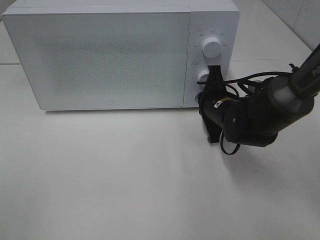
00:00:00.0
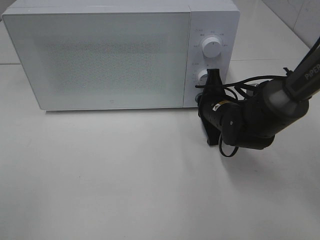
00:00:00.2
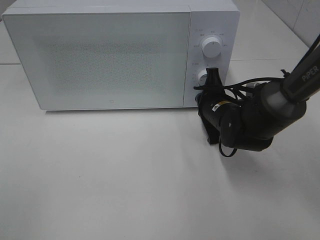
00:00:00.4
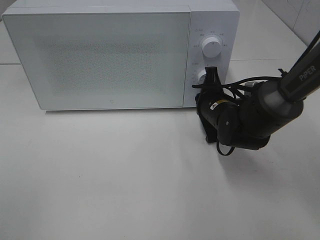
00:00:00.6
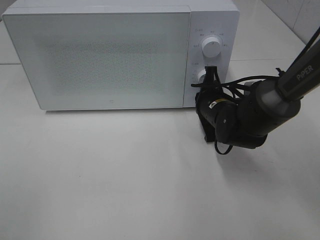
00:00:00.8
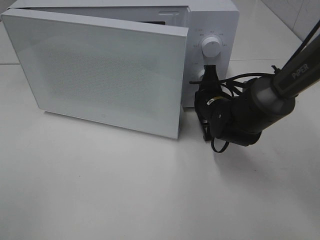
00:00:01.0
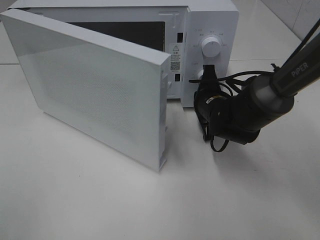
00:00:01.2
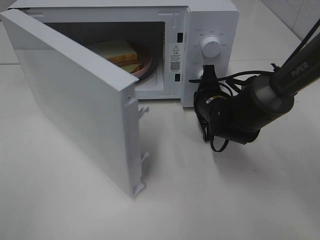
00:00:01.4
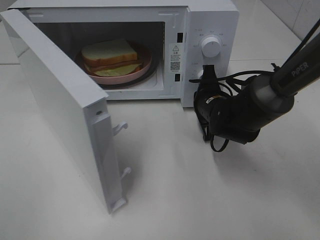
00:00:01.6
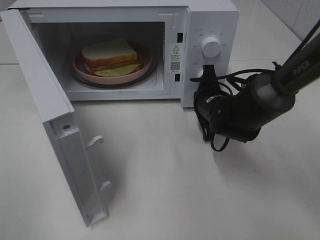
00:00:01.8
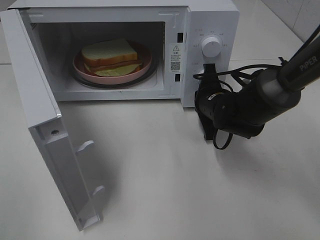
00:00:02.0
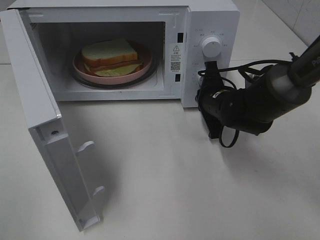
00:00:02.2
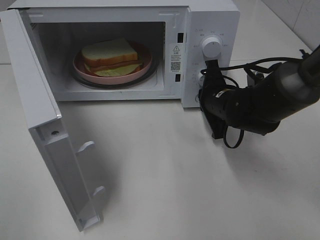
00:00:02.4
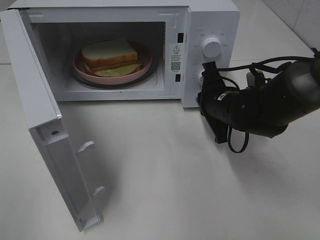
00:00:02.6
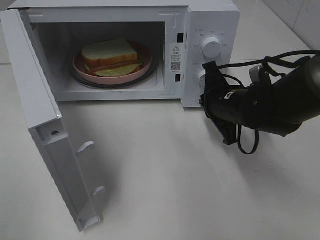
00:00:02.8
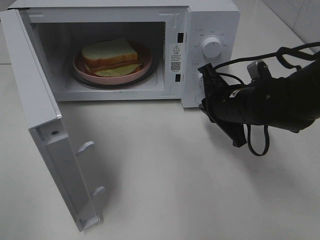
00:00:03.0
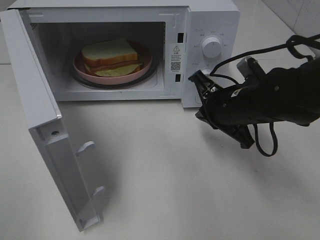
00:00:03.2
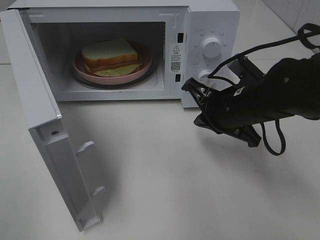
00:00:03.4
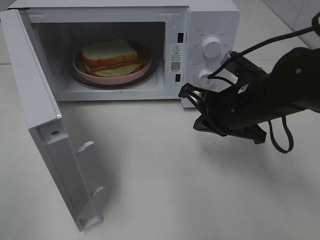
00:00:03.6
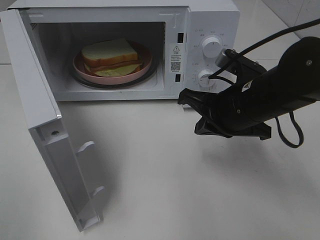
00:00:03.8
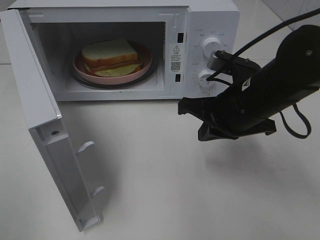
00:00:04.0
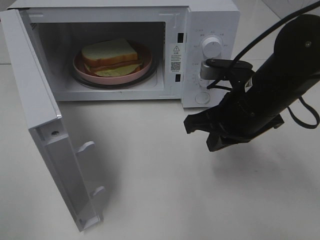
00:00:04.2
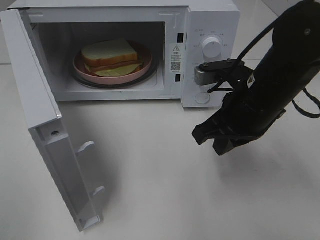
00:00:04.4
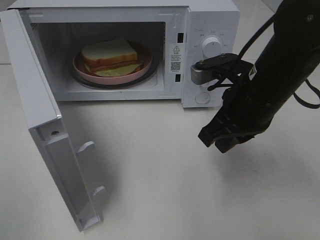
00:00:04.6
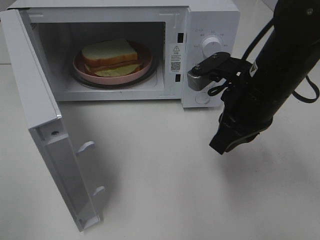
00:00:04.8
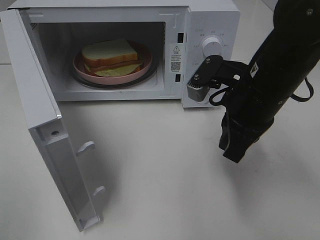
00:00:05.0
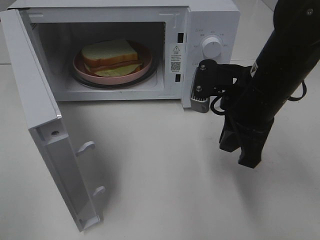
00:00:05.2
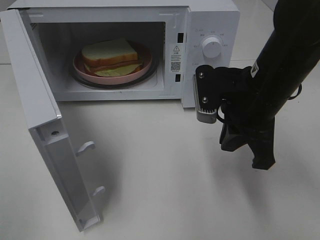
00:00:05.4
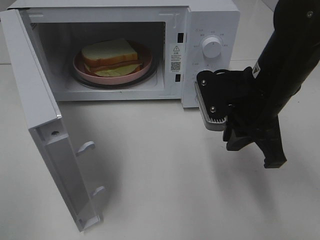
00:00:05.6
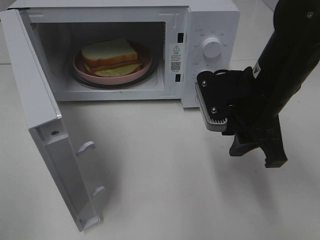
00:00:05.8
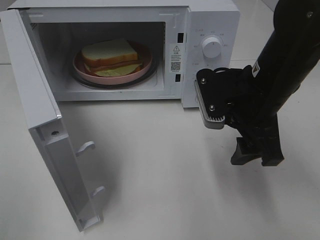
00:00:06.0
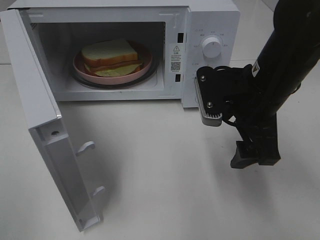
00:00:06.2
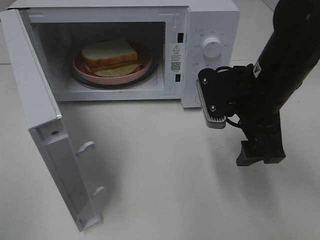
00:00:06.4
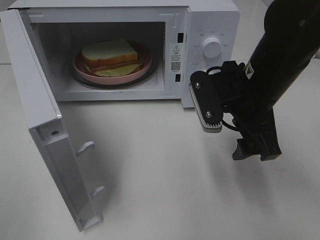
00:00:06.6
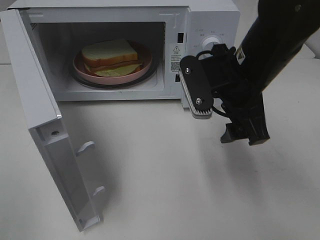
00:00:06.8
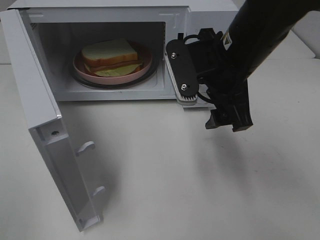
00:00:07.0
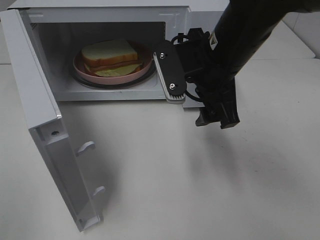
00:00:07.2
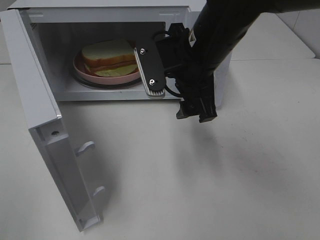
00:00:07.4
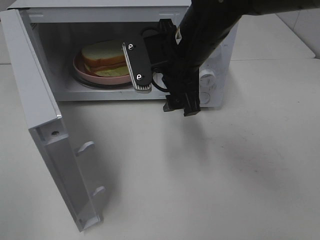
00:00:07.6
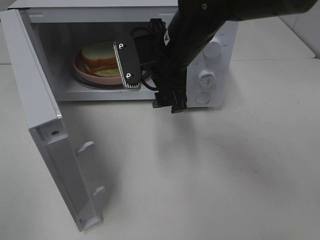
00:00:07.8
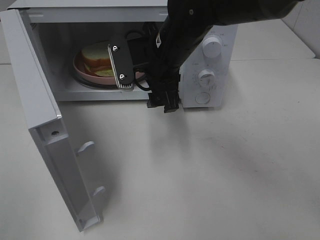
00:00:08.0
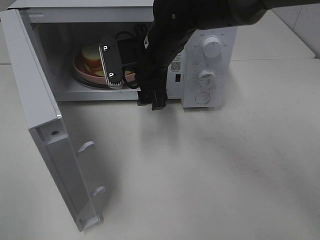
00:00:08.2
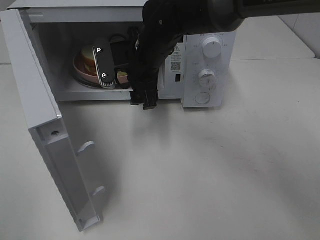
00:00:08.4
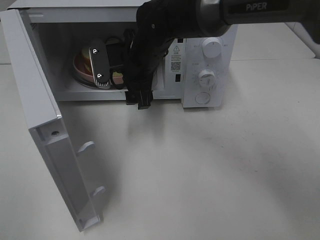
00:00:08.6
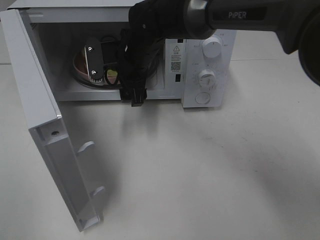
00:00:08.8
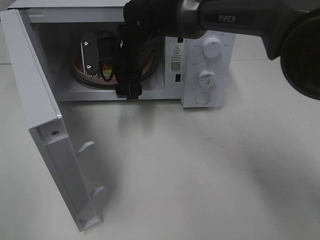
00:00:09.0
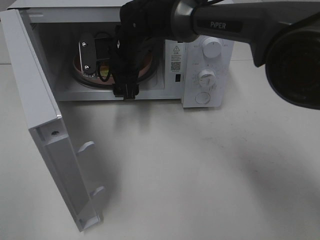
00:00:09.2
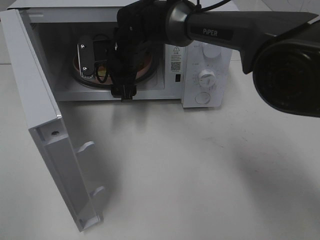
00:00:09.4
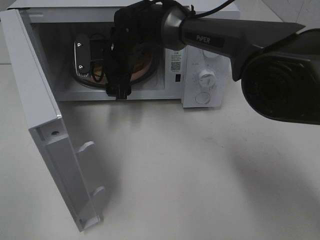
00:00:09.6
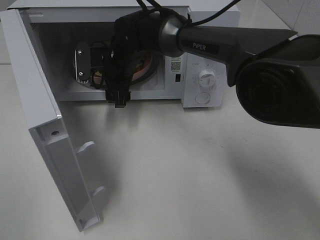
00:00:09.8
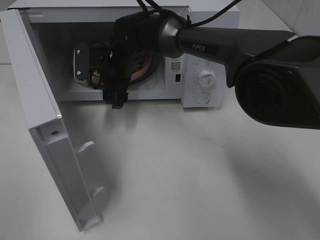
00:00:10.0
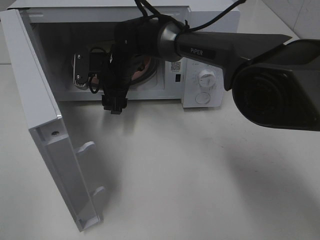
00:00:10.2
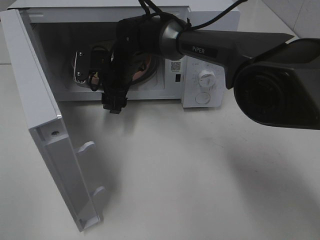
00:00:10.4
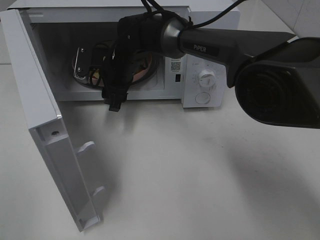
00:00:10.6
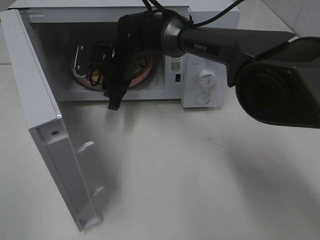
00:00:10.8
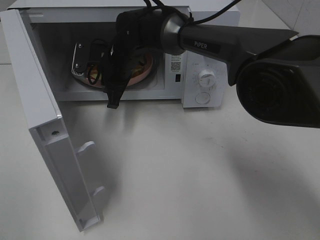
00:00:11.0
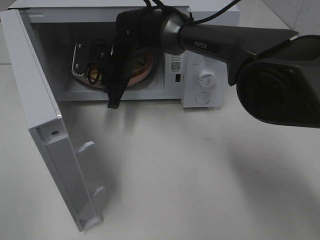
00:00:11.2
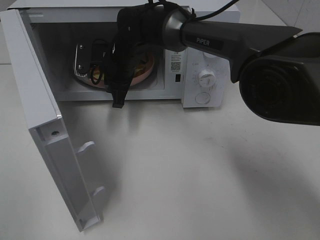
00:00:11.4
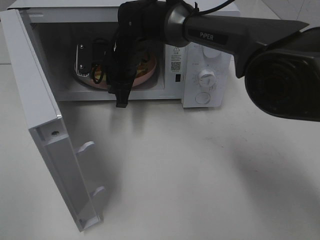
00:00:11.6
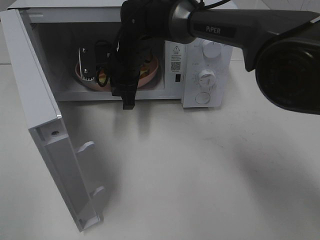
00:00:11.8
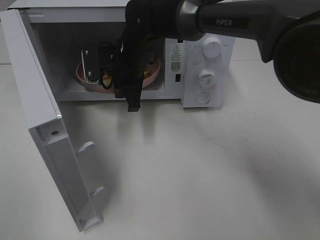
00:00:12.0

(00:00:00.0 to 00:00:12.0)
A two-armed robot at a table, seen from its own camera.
Task of the whole recording: Heat Sandwich.
Step, 00:00:00.0 - 00:00:02.6: Right hand: press the switch.
Step, 00:00:02.8 - 00:00:11.2: Right hand: grab the plate with the sandwich.
00:00:01.6 - 00:00:03.0: The right gripper heads backward and upward, covering about 10 cm.
00:00:03.0 - 00:00:04.4: The right gripper heads upward, covering about 5 cm.
00:00:04.4 - 00:00:06.0: The right gripper opens its fingers.
00:00:06.0 - 00:00:07.6: The right gripper travels to the left and forward by some 10 cm.
00:00:07.6 - 00:00:09.0: The right gripper heads forward, to the left and downward, covering some 15 cm.
00:00:09.0 - 00:00:10.4: The right gripper shifts by approximately 5 cm.
00:00:10.4 - 00:00:12.0: The right gripper closes its fingers.

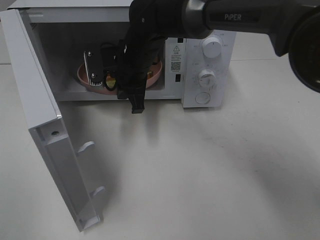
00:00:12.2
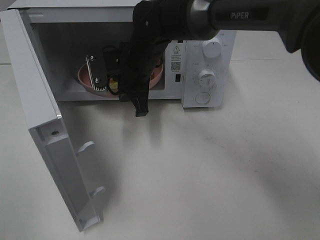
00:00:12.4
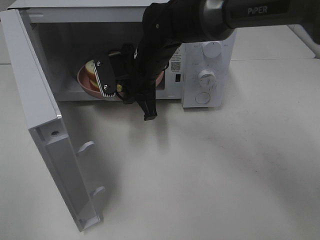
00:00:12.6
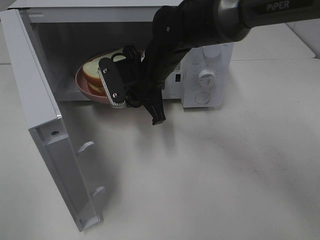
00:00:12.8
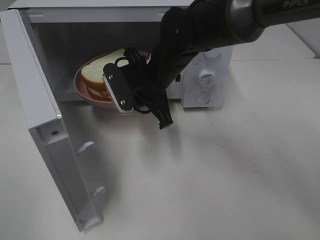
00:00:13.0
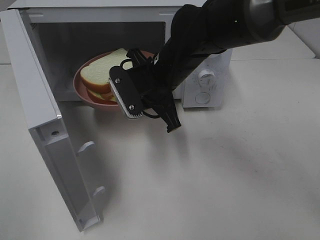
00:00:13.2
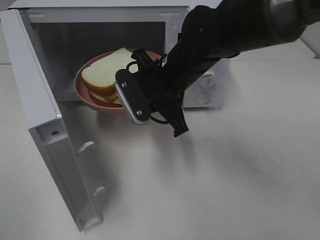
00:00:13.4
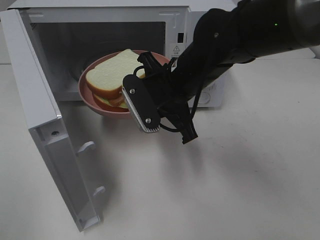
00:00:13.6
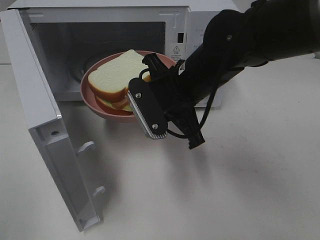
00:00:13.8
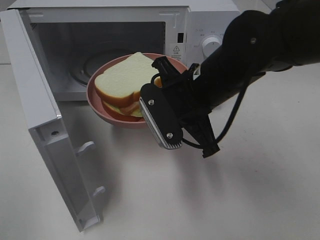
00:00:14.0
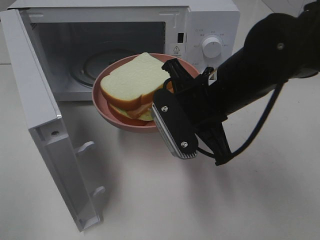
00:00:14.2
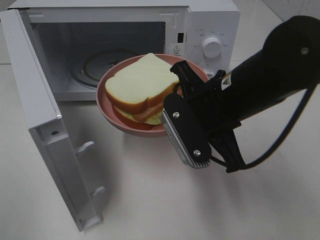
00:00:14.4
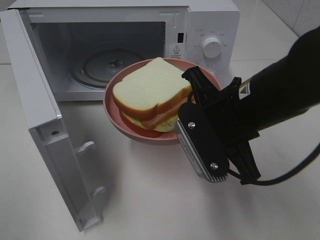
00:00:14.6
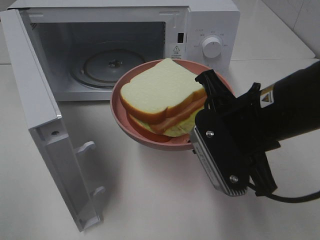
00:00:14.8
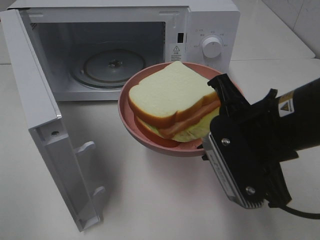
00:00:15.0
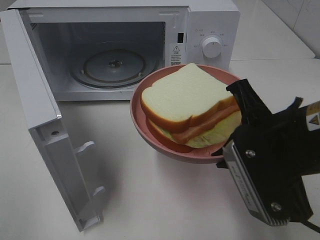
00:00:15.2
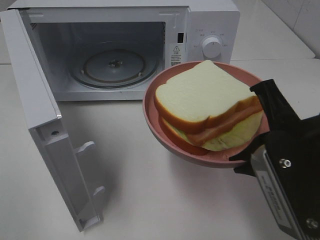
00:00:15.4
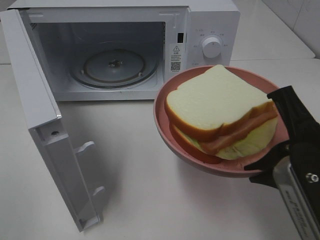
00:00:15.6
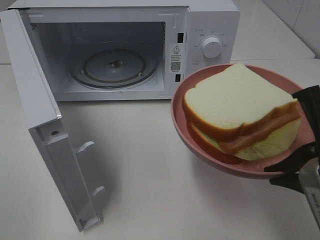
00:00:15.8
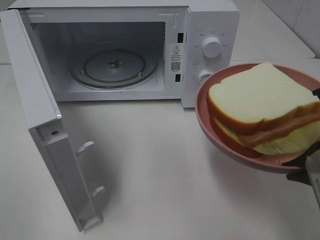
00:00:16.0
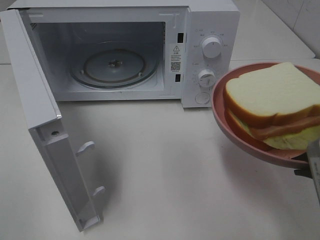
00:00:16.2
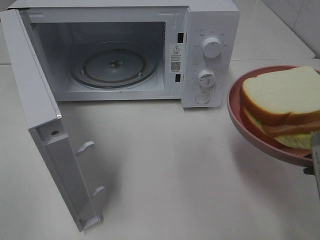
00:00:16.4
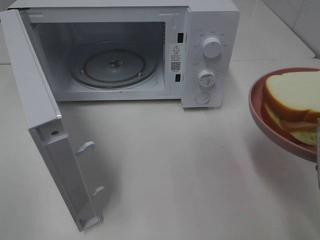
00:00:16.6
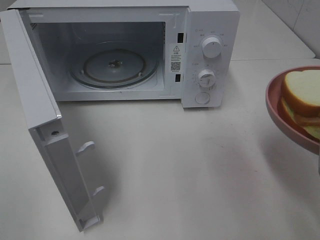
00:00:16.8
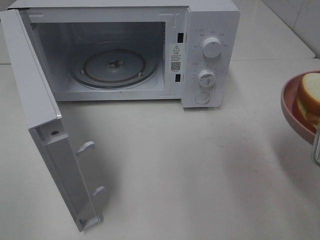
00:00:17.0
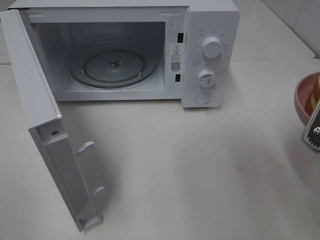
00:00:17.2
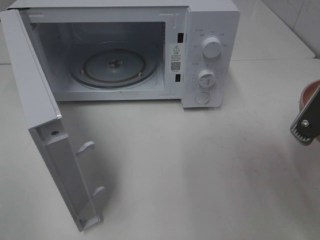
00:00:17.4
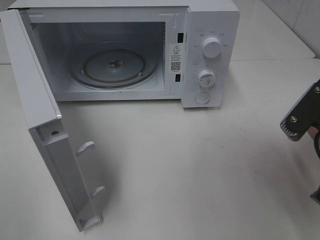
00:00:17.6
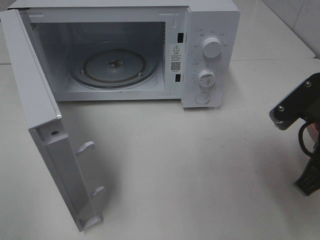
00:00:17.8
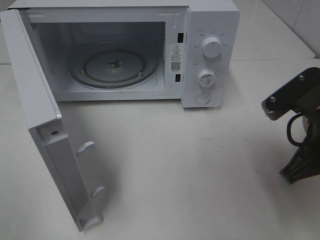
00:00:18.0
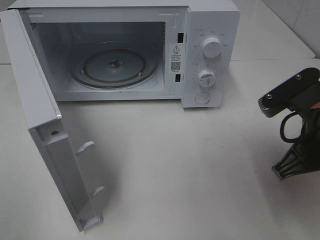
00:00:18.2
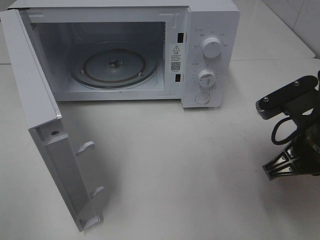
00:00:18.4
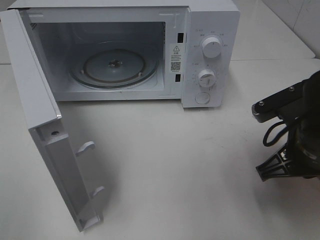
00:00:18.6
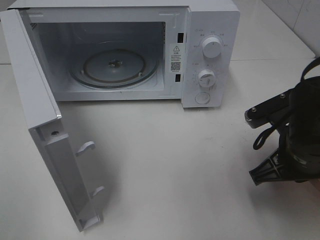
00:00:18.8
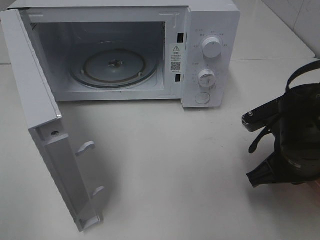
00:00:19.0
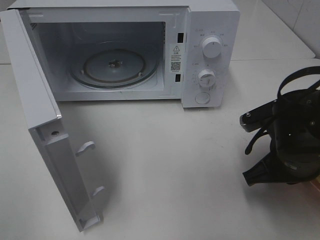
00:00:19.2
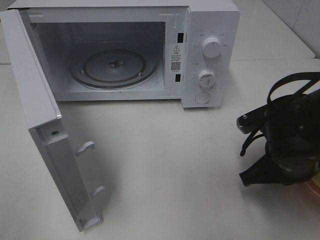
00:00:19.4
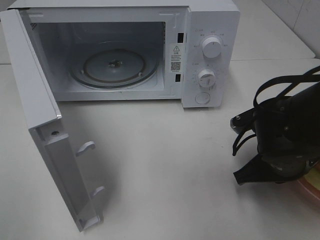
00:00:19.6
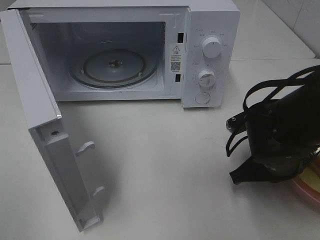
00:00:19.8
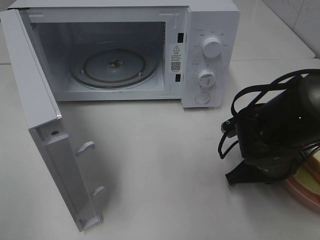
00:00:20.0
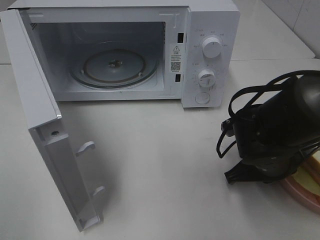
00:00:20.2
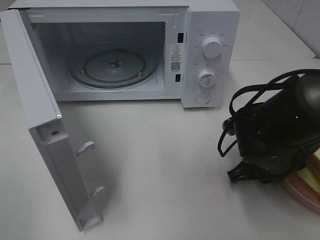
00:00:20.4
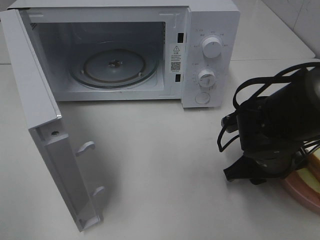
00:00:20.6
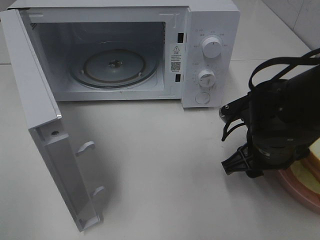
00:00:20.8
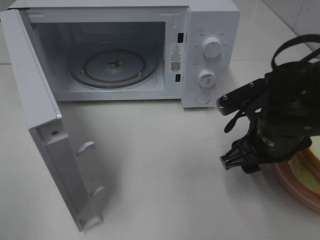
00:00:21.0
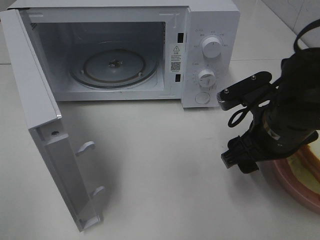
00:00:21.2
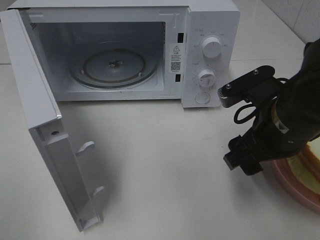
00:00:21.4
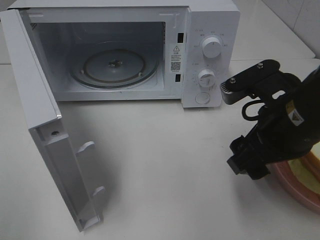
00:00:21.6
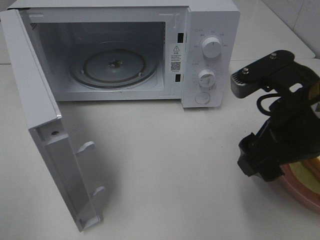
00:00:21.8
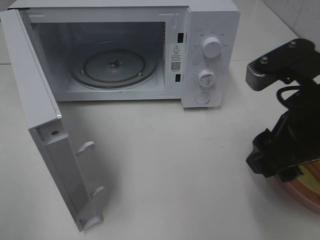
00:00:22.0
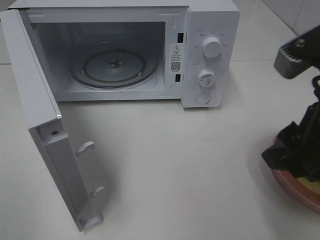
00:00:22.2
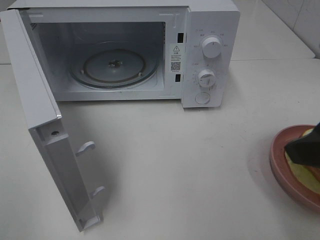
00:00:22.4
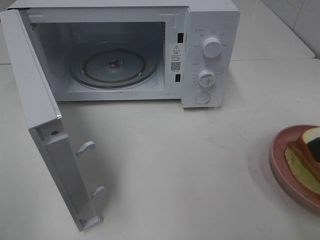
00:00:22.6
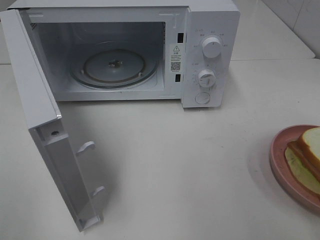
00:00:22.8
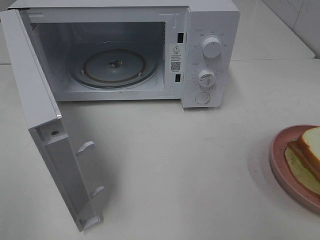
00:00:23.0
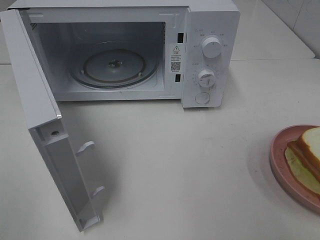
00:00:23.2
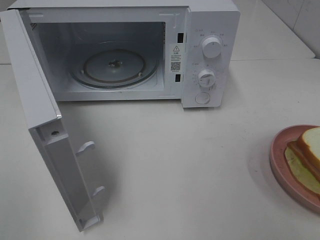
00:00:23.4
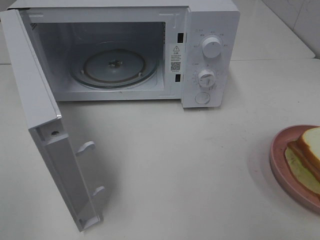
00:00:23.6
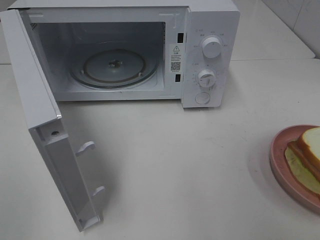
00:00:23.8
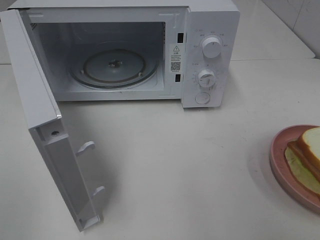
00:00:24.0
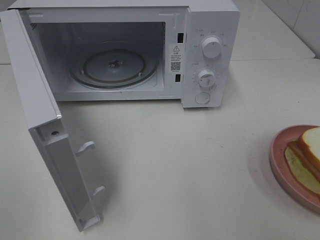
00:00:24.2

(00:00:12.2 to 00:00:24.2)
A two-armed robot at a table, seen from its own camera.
Task of the whole recording: Heat Sandwich.
Step, 00:00:12.2 - 00:00:21.6: Right hand: place the plate on the table.
00:00:12.2 - 00:00:13.8: The right gripper goes some 15 cm backward and to the right.
00:00:13.8 - 00:00:15.2: The right gripper heads backward and to the right, covering approximately 15 cm.
00:00:15.2 - 00:00:16.6: The right gripper goes some 10 cm to the right.
00:00:16.6 - 00:00:18.2: The right gripper moves forward, about 5 cm.
00:00:18.2 - 00:00:19.8: The right gripper heads downward, covering roughly 10 cm.
00:00:19.8 - 00:00:21.2: The right gripper travels upward by approximately 5 cm, and opens up.
00:00:21.2 - 00:00:22.6: The right gripper shifts approximately 20 cm upward, backward and to the right.
